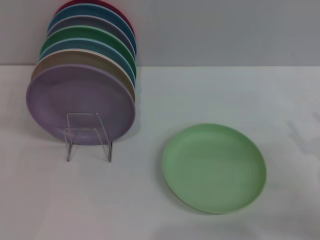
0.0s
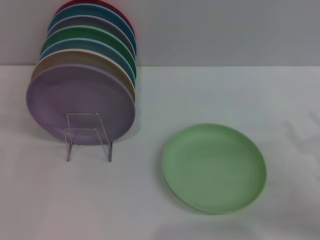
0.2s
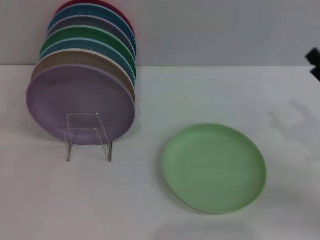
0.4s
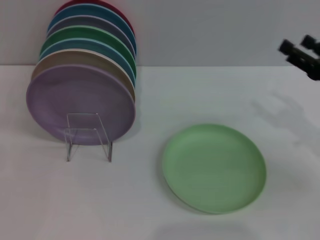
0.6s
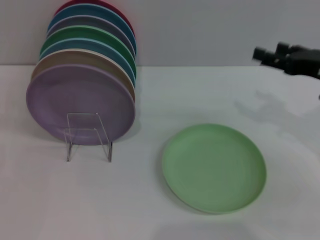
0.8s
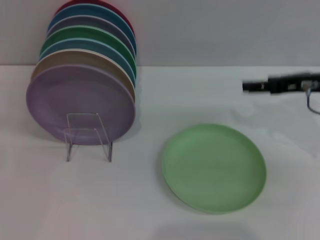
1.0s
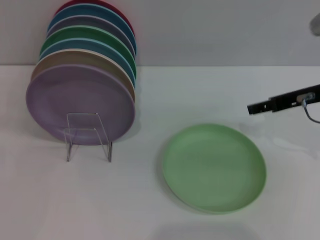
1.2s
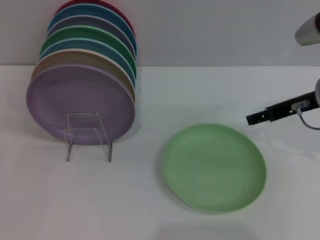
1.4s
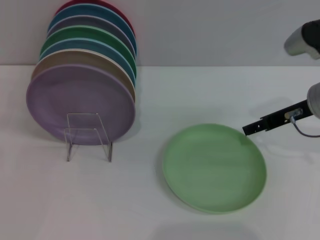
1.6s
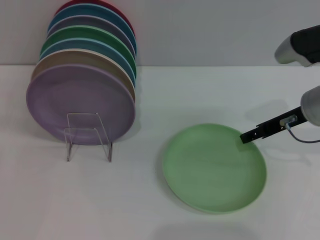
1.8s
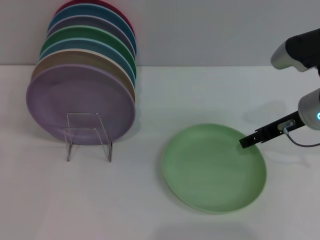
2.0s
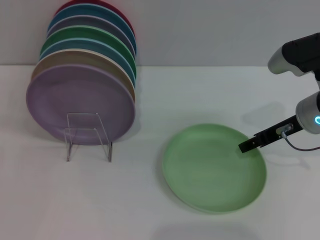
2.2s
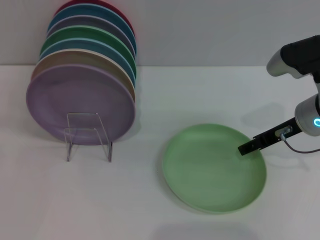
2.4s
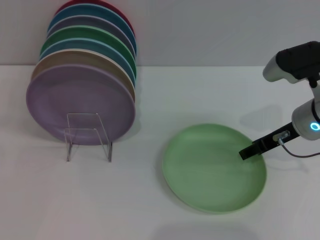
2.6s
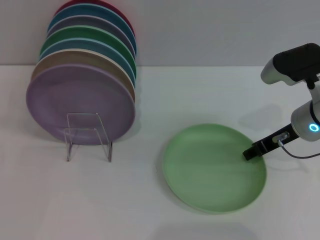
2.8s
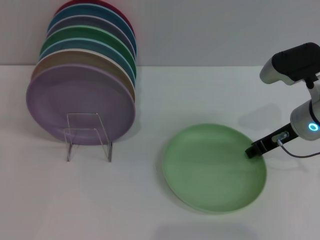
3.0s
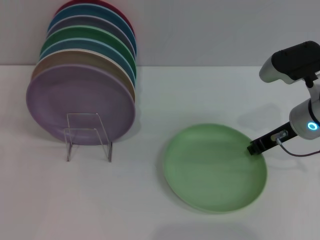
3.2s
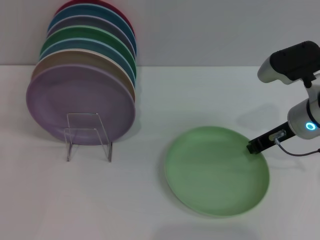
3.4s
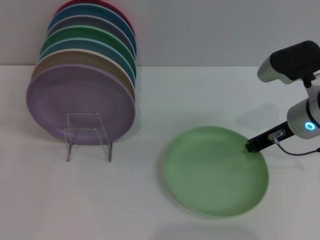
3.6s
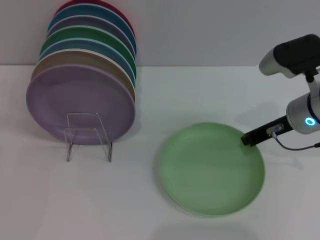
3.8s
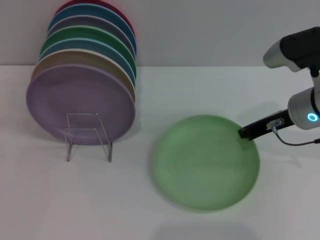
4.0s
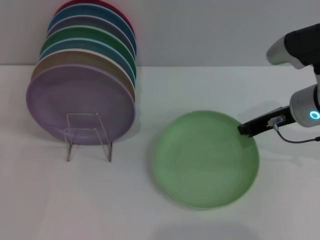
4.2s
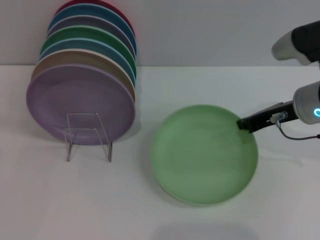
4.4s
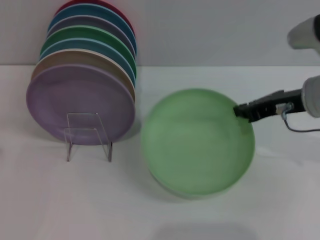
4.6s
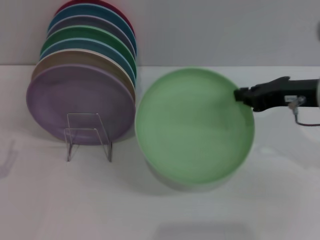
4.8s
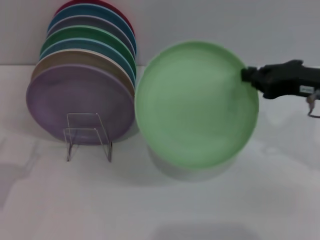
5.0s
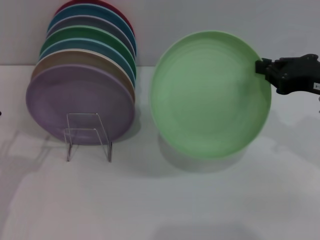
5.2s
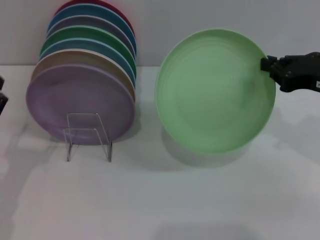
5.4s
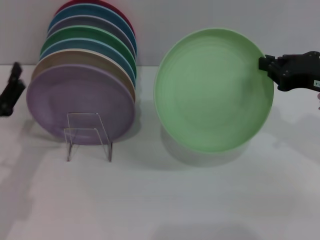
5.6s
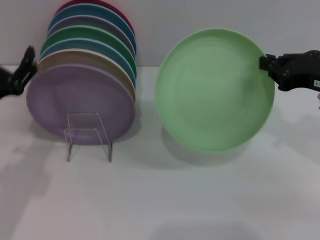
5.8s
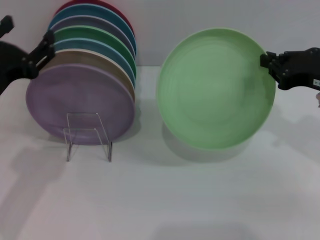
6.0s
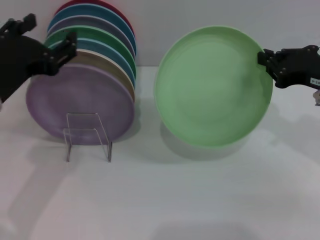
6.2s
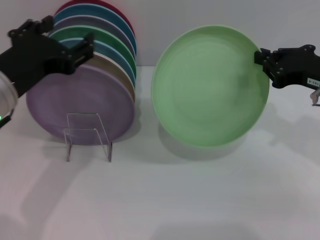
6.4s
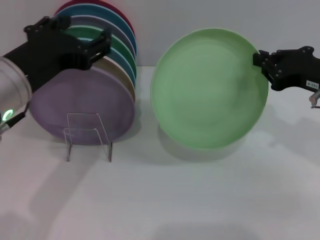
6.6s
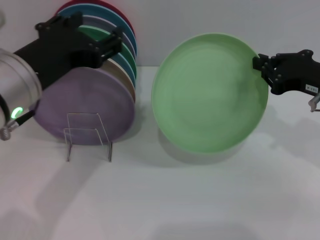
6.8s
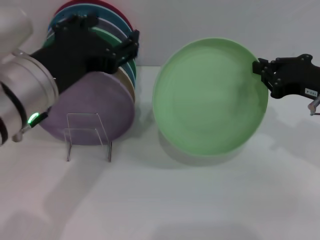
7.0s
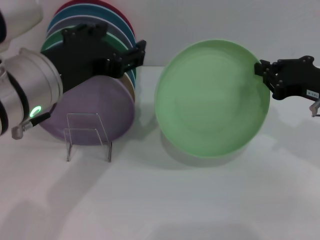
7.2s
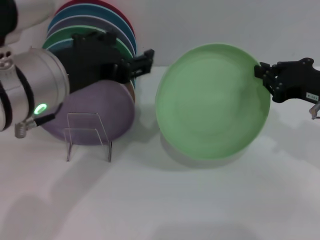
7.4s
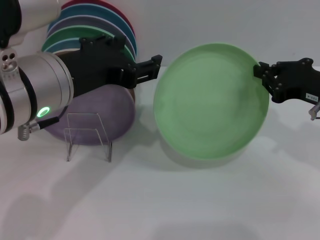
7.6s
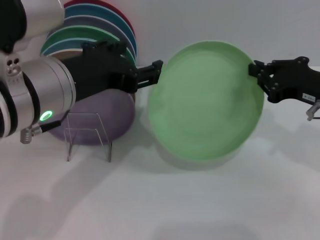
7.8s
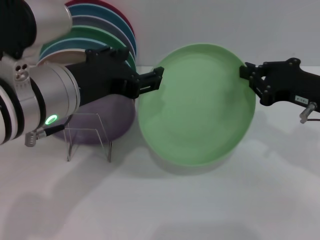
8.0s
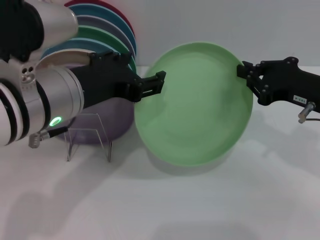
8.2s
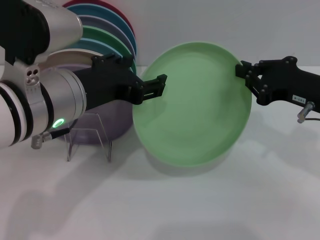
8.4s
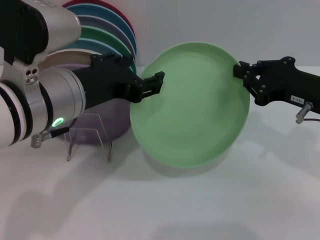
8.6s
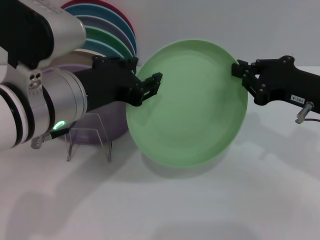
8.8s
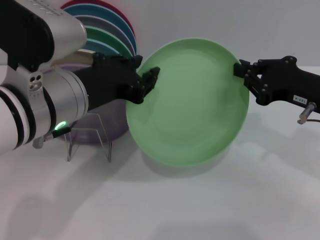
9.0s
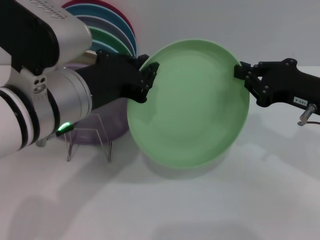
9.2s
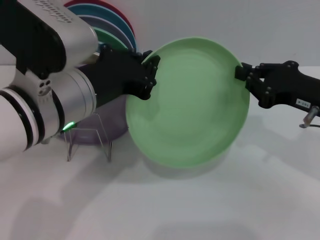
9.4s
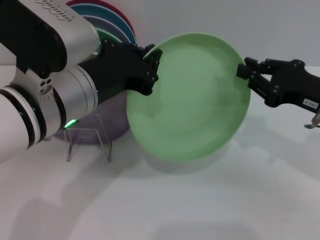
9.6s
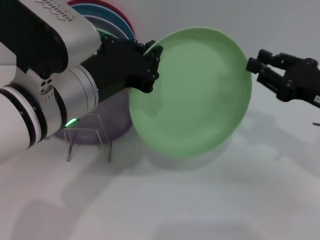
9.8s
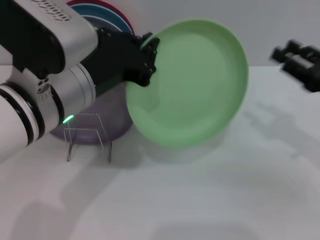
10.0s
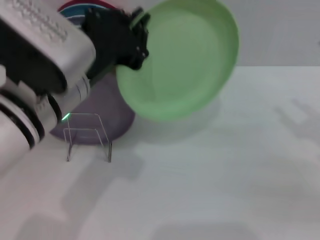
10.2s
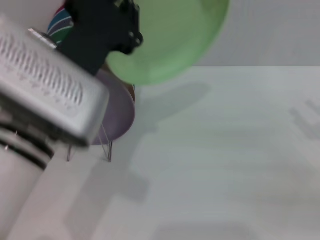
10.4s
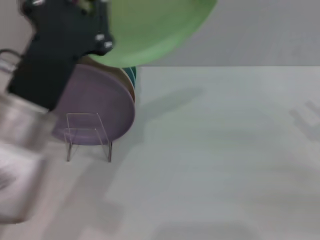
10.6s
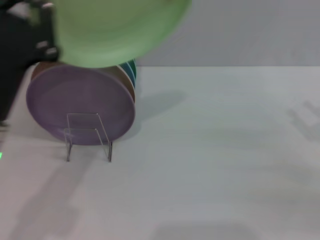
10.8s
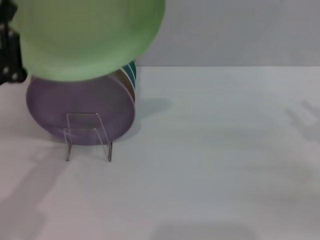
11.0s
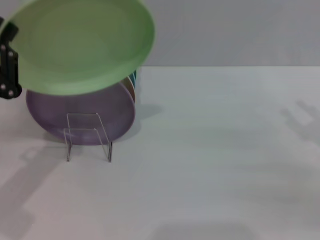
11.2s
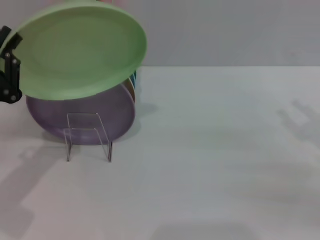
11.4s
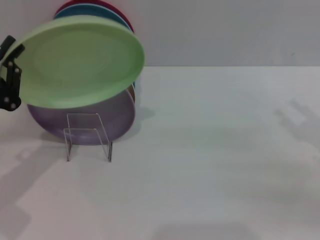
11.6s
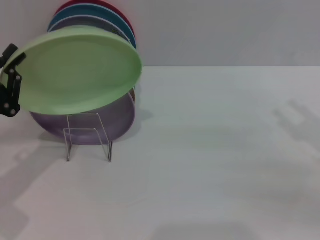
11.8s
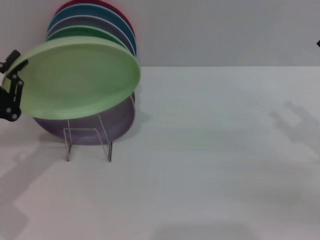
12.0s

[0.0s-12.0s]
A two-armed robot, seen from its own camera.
Task of the whole recording: Grip the plate with one hand, pass it to the other, then set it on the shelf.
Step, 0.0s to 5.0s: Pick up the plate with the right gripper.
Step, 5.2s to 10.2s: Pass the plate from the right gripper to the left gripper.
0.0s to 1.6s: The right gripper travels forward, upward and to the left by about 20 cm.
1.6s to 3.0s: The right gripper closes its fingers.
3.0s to 4.4s: The right gripper closes its fingers.
4.4s to 6.0s: The left gripper heads upward, to the right and forward, covering about 20 cm. Meanwhile the right gripper moves to the right, some 5 cm.
6.0s to 7.6s: The left gripper heads to the right and upward, covering some 10 cm.
7.6s to 9.0s: The left gripper closes.
9.0s to 10.4s: The right gripper goes approximately 10 cm to the right, and opens its fingers. Meanwhile the left gripper closes its fingers.
10.4s to 12.0s: The left gripper travels to the left and downward by approximately 20 cm.

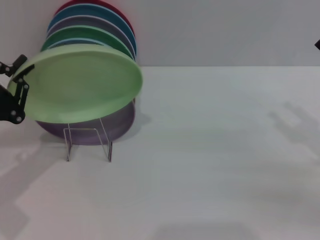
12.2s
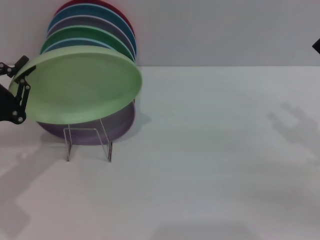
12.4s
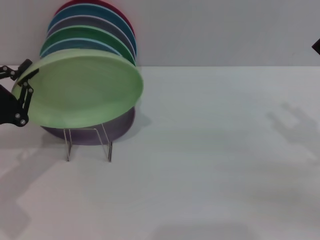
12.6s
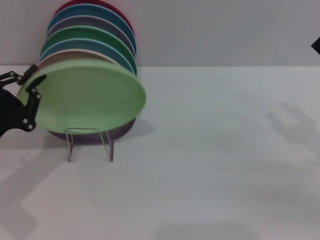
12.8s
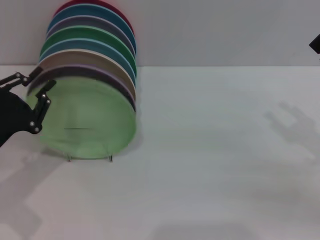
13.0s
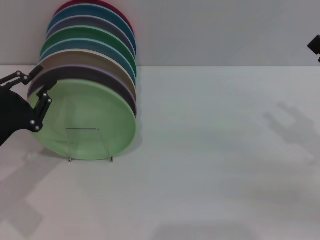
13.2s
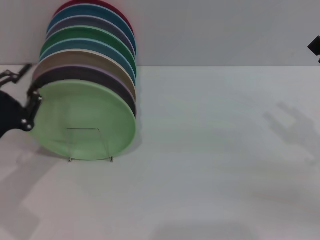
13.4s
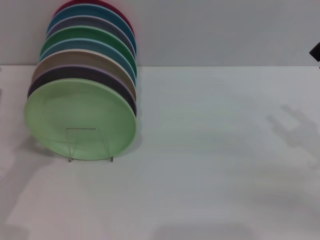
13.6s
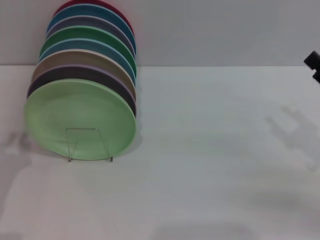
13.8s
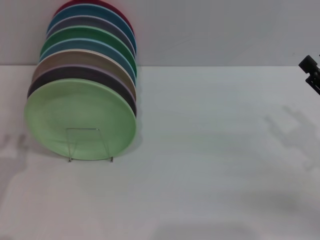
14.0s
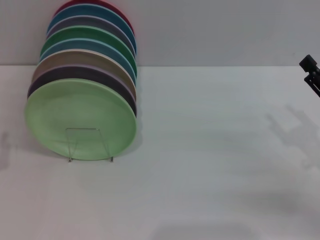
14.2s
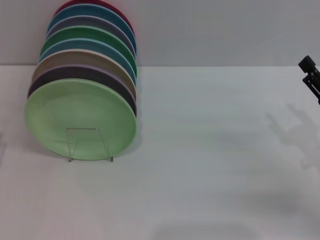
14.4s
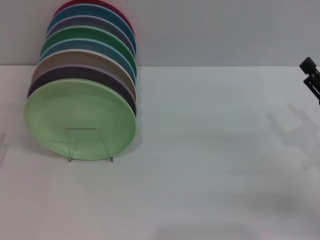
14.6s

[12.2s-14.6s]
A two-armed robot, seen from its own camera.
Task of the whole recording: Grip the plate with one hand, pass it to the other, then set it on the shelf.
12.2s to 13.4s: The grippers make only small movements.
13.4s to 14.6s: The left gripper is displaced backward by approximately 5 cm.

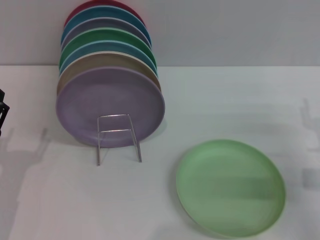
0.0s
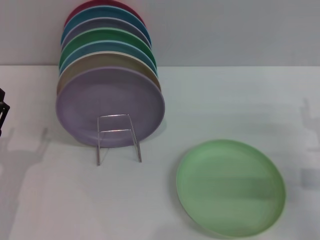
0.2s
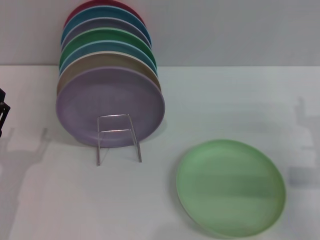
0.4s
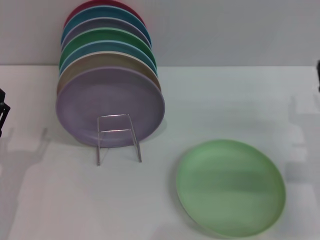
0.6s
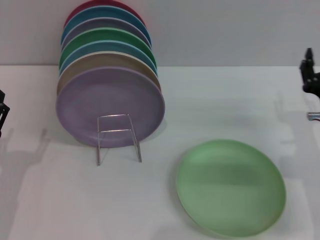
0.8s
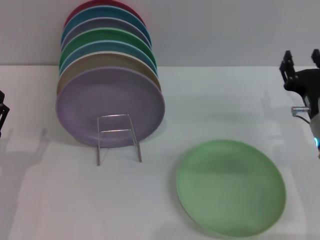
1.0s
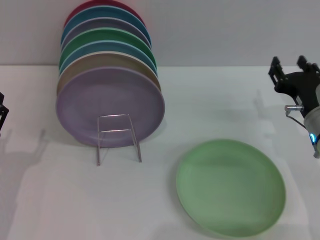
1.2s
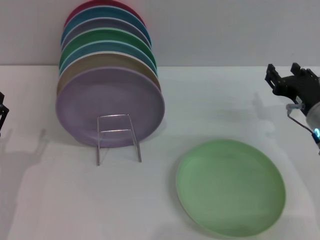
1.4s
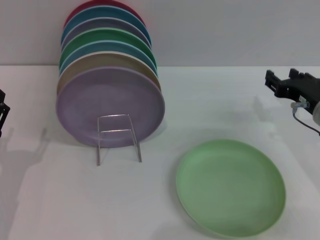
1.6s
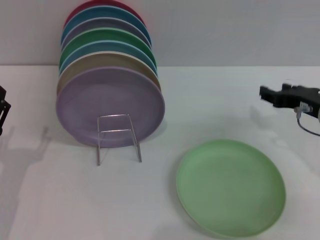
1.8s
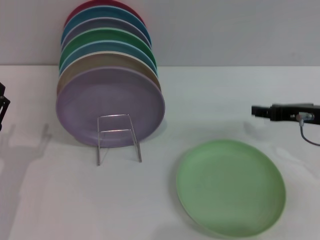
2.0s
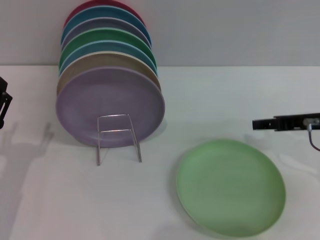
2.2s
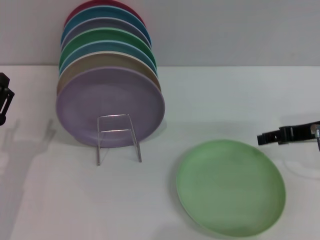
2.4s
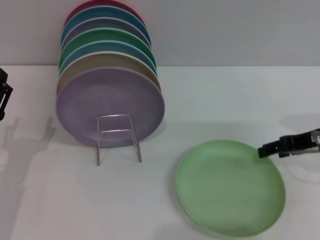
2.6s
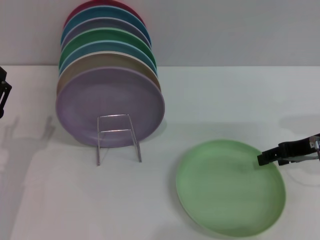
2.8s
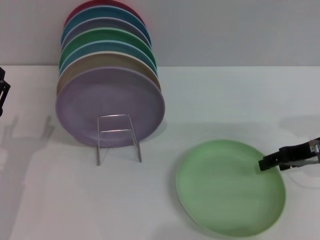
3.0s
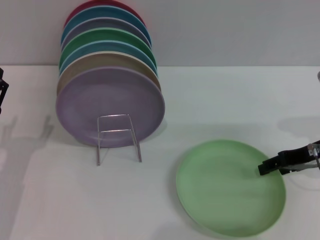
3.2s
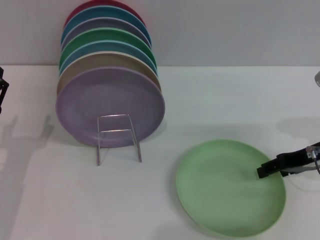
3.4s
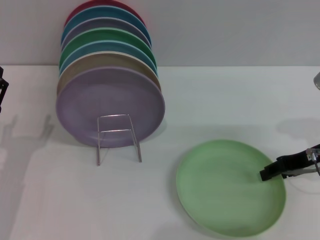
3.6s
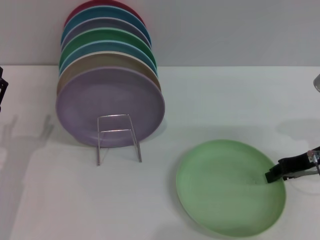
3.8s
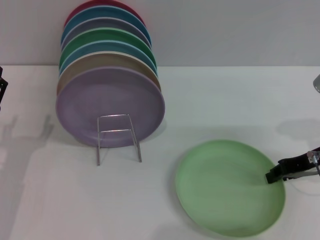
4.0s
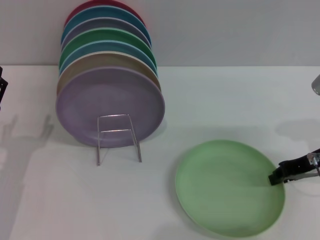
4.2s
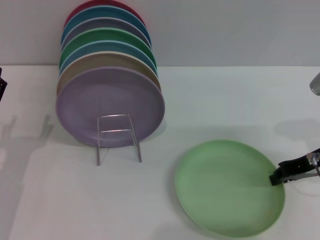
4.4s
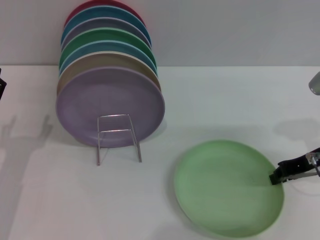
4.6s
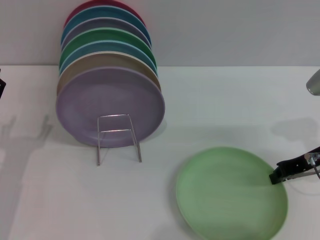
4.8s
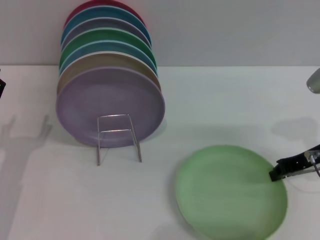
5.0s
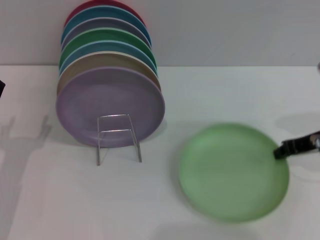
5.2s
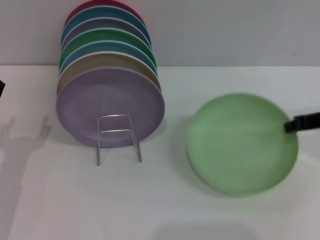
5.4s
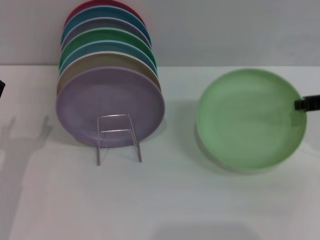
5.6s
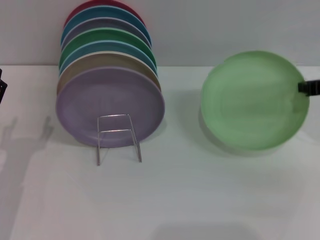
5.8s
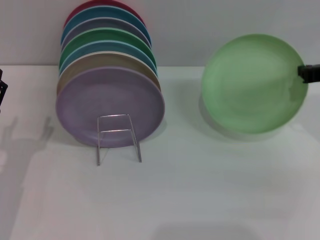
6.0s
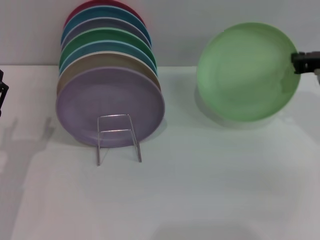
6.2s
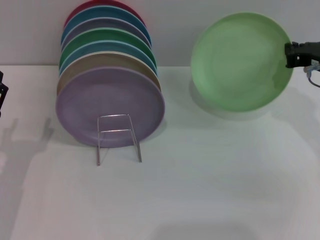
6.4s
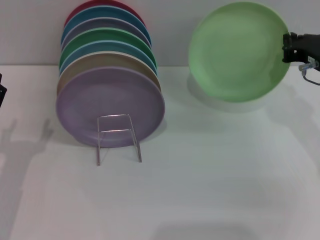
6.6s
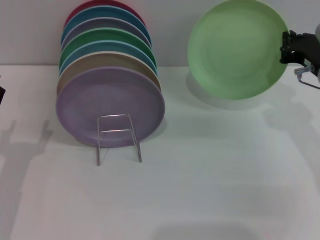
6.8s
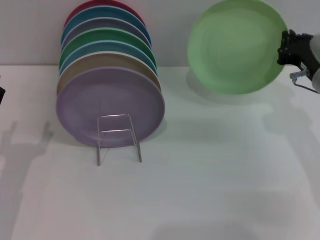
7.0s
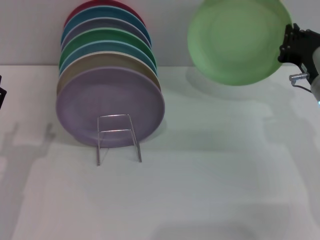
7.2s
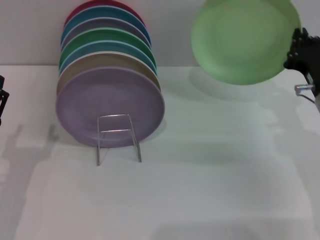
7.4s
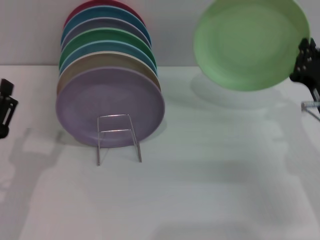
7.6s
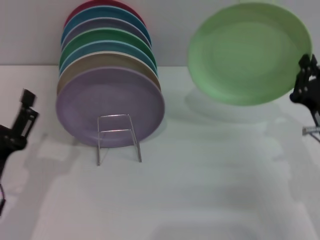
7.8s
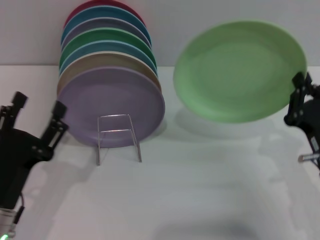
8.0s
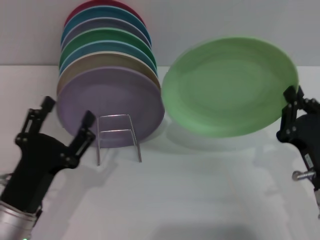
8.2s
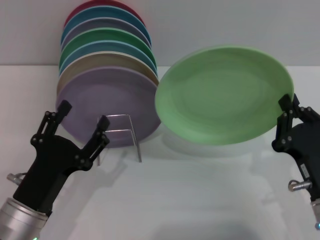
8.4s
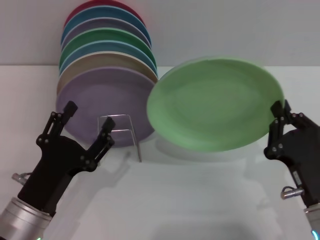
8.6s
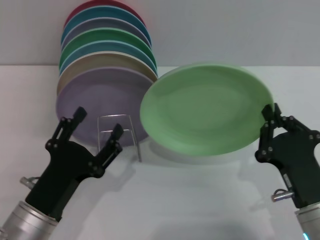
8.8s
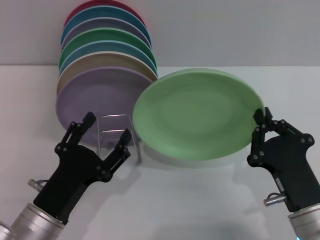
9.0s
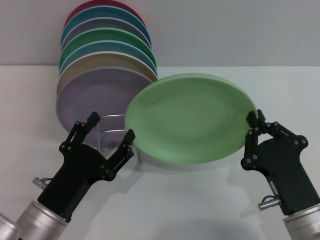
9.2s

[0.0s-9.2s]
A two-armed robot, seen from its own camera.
Task of the whole recording: Grip the plate with one hand, pass it to the other, then set it on the shelf.
Step, 0.0s to 6.8s: Pick up the plate with the right gripper.
0.0s to 1.6s: The right gripper heads forward, covering approximately 5 cm.
3.0s to 4.6s: The right gripper closes.
4.6s to 6.2s: The right gripper shifts some 5 cm upward.
6.2s to 7.6s: The right gripper is displaced downward and backward by some 10 cm.
7.6s to 9.2s: The left gripper moves to the right, roughly 10 cm, while the right gripper heads backward and to the left, covering roughly 15 cm.
